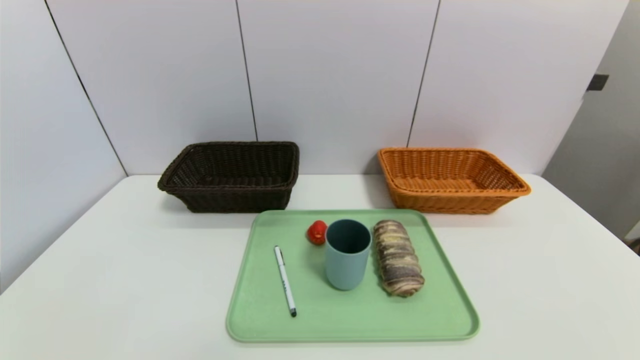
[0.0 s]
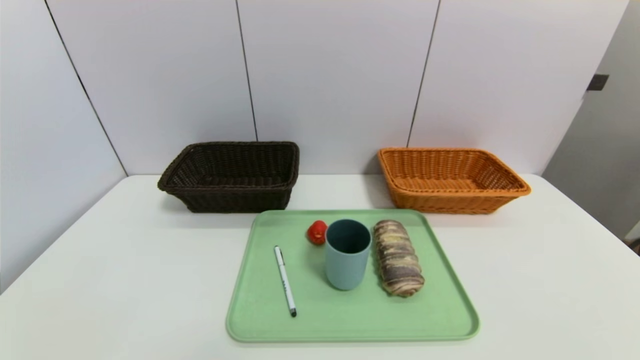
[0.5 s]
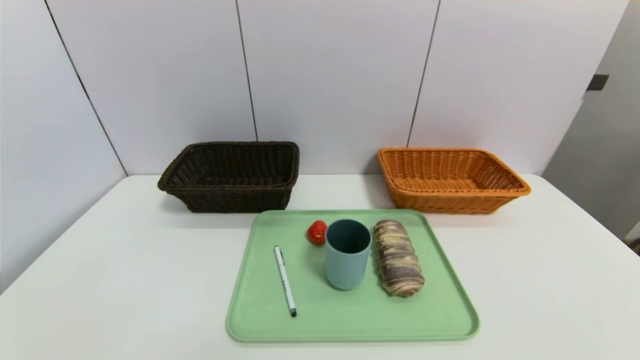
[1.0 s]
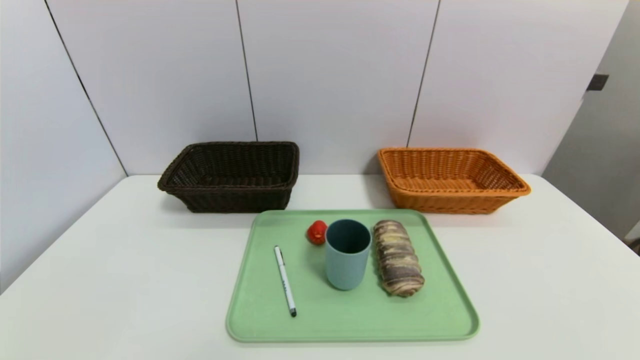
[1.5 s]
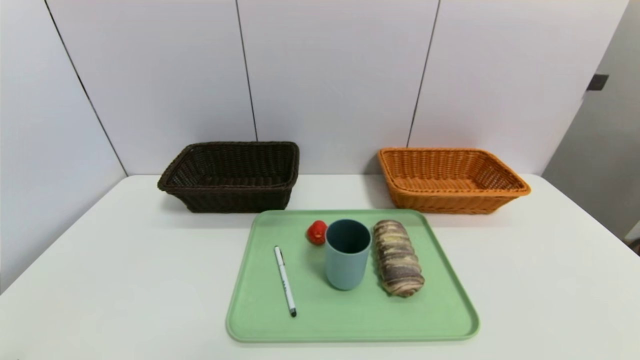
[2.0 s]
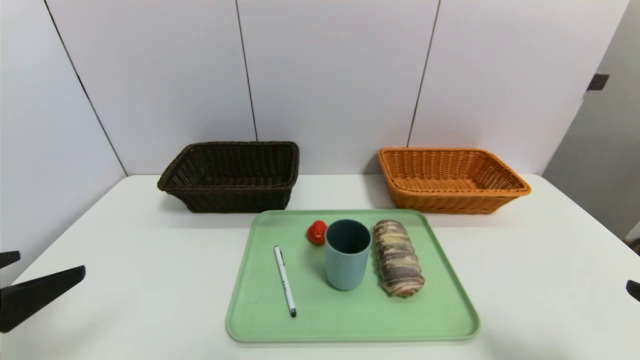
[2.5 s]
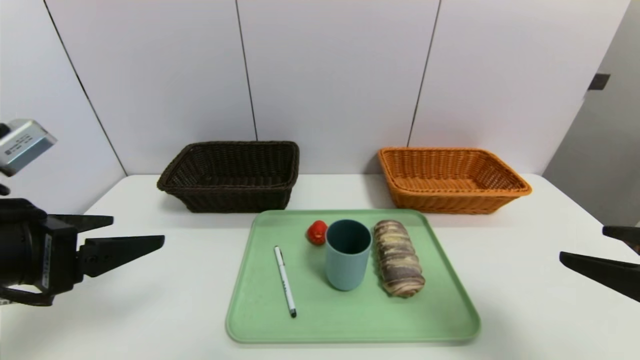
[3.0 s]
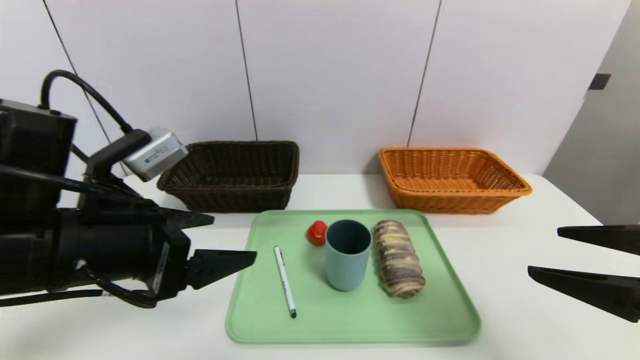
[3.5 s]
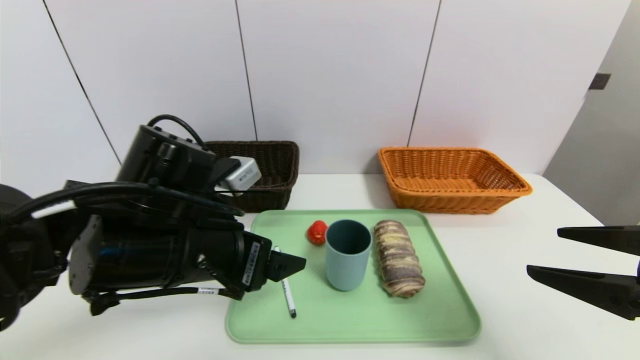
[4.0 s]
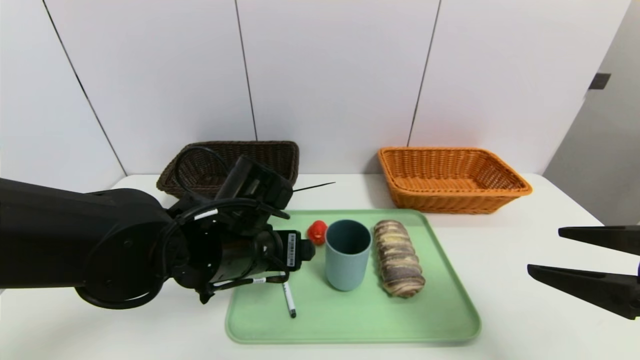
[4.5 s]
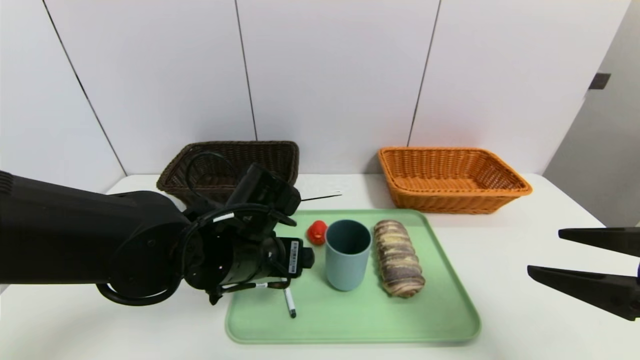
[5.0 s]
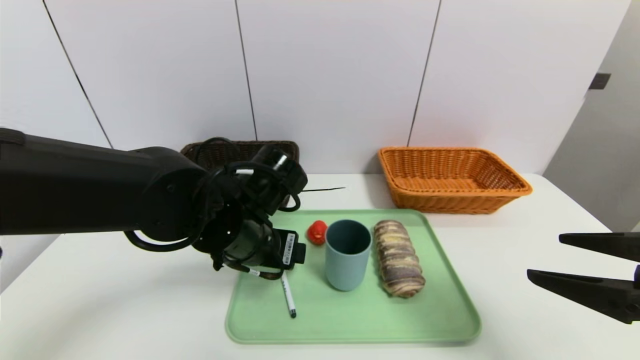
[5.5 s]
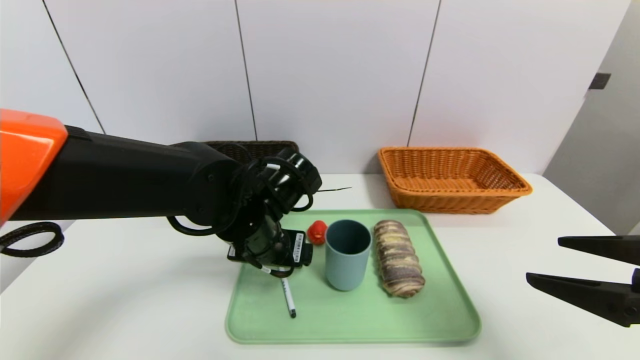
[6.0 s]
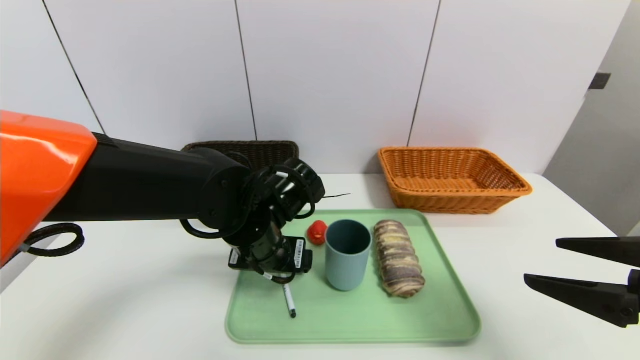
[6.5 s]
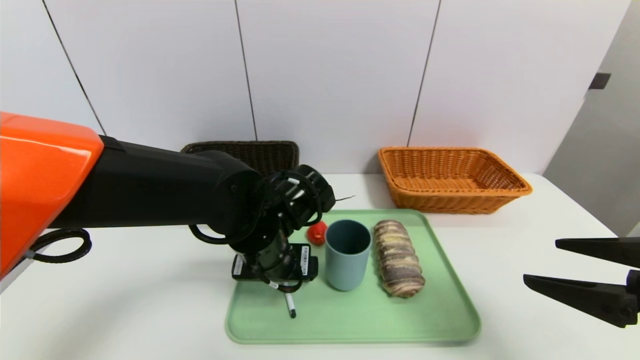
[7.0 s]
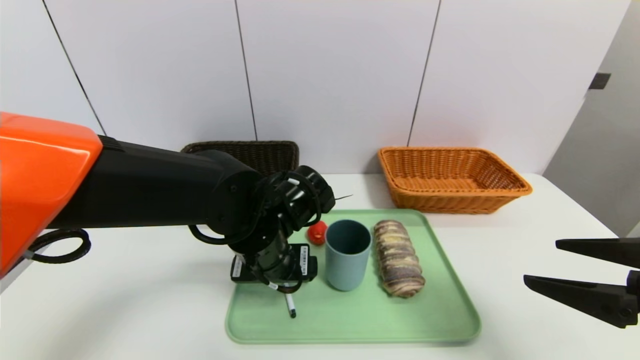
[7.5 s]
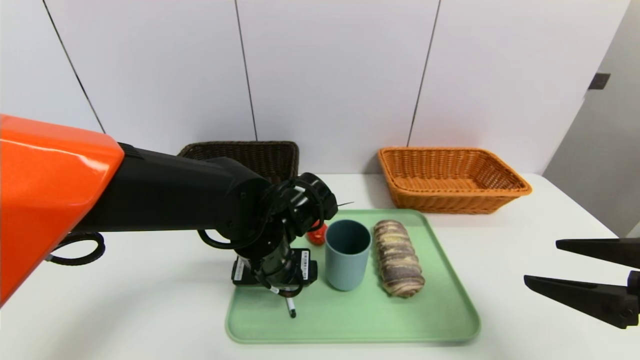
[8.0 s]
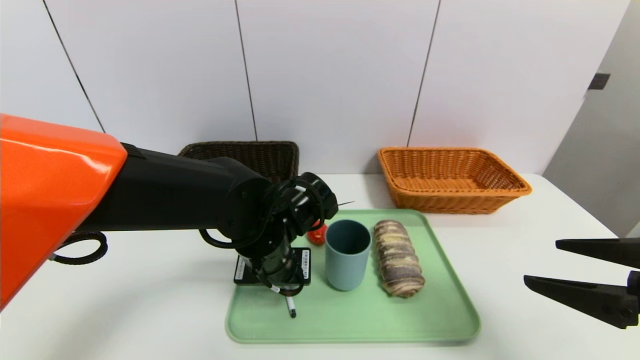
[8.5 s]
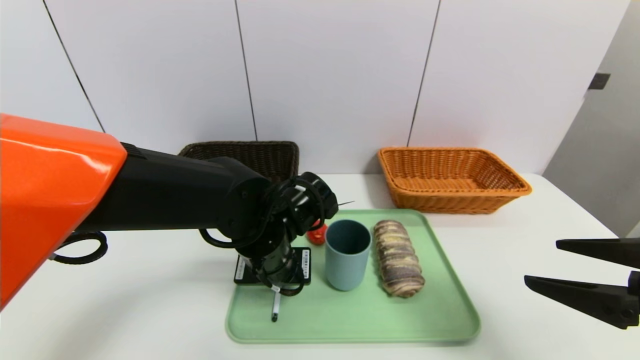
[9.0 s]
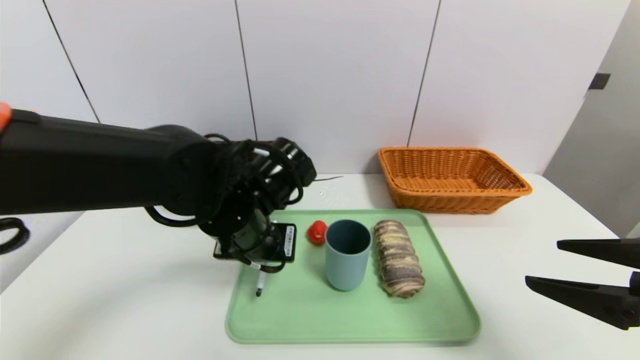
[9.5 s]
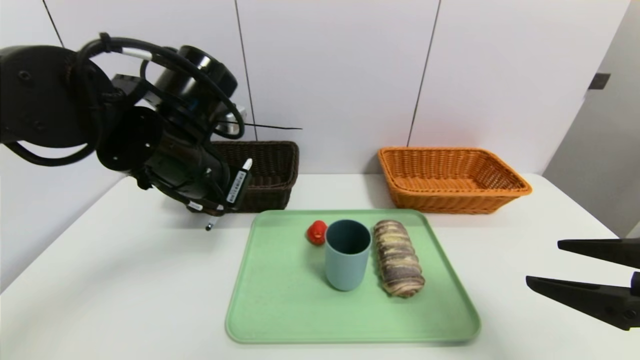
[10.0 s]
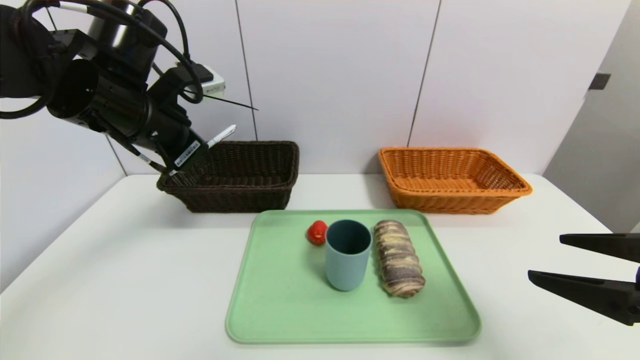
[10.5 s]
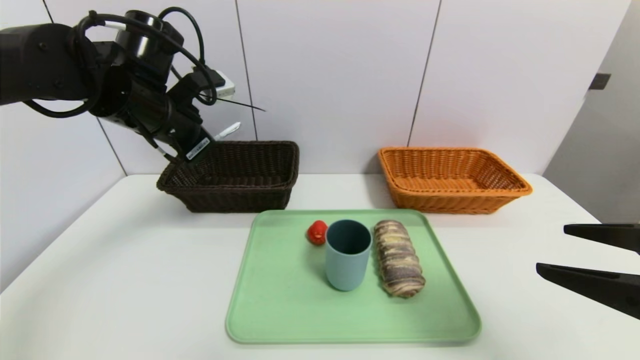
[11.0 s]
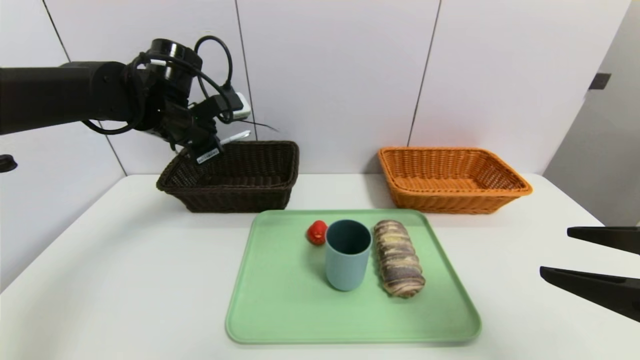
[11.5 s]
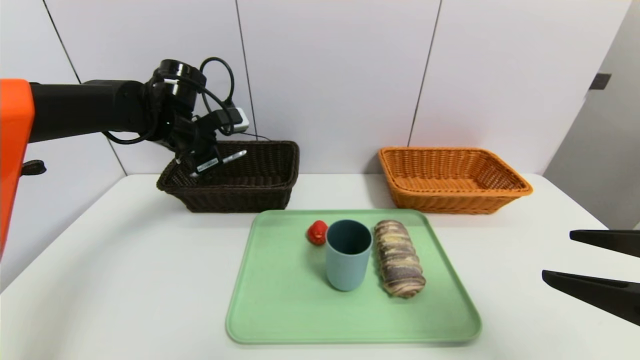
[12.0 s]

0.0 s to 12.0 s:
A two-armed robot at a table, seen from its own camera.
Task of the whole recording: place the food in the right basket with the right gripper, and place the non food items in the left basket with the left gripper.
2.0 to 4.0 s: The left gripper shifts roughly 25 cm forward and to the right. Meanwhile the right gripper shifts roughly 15 cm forward and upward.
4.0 to 6.0 s: The left gripper is displaced forward and to the right by about 10 cm.
6.0 to 8.0 s: The grippers make only small movements.
8.0 to 10.0 s: The left gripper is displaced upward and to the left by roughly 15 cm, and closes up.
10.0 to 12.0 s: The left gripper moves forward and to the left, some 15 cm.

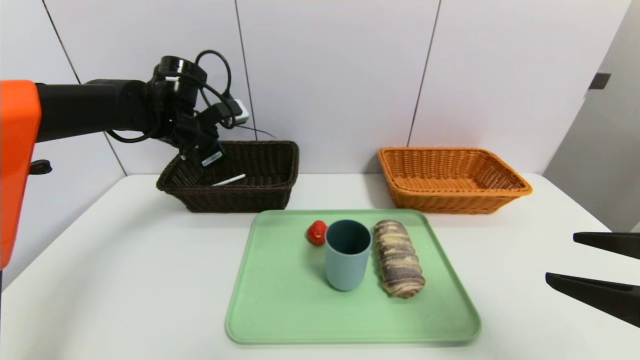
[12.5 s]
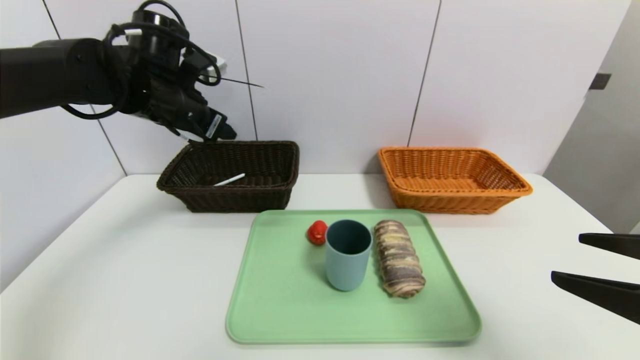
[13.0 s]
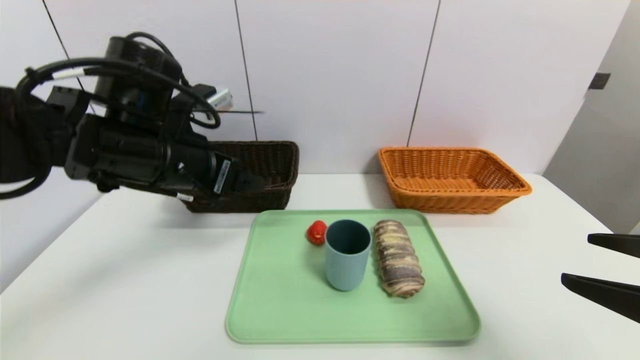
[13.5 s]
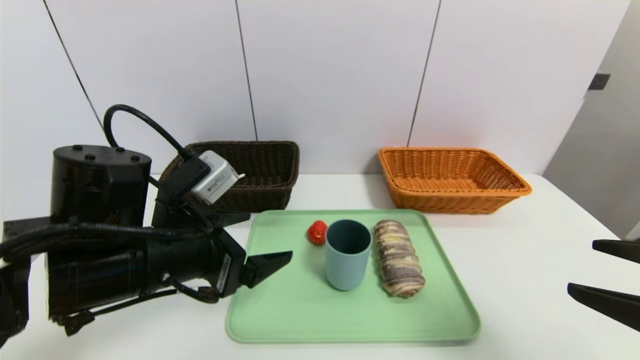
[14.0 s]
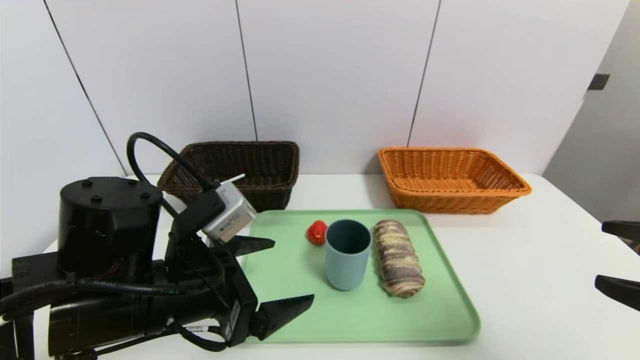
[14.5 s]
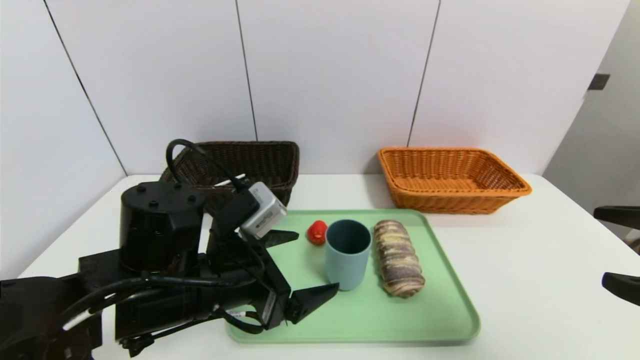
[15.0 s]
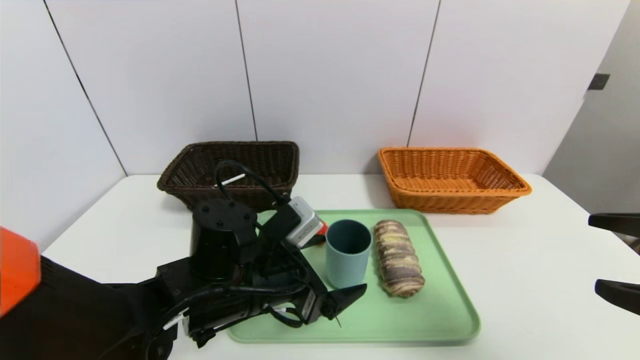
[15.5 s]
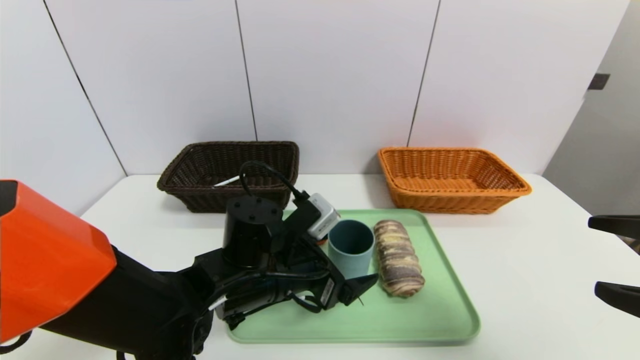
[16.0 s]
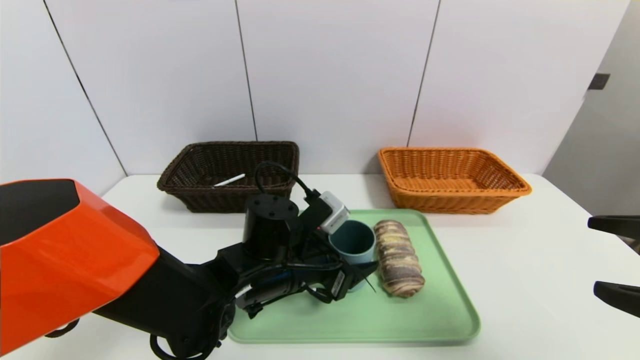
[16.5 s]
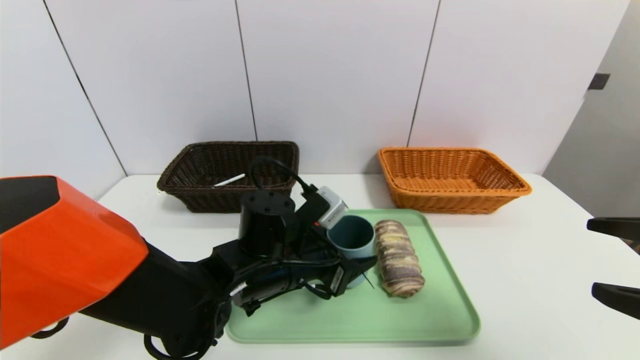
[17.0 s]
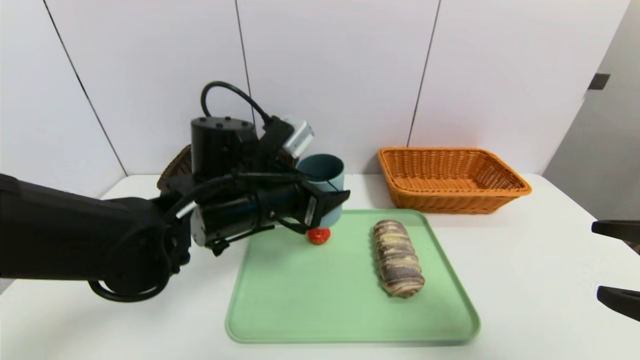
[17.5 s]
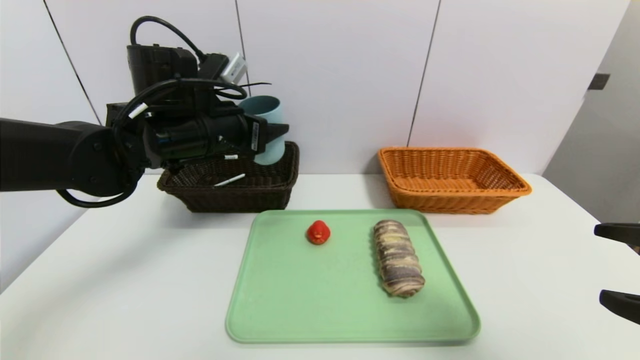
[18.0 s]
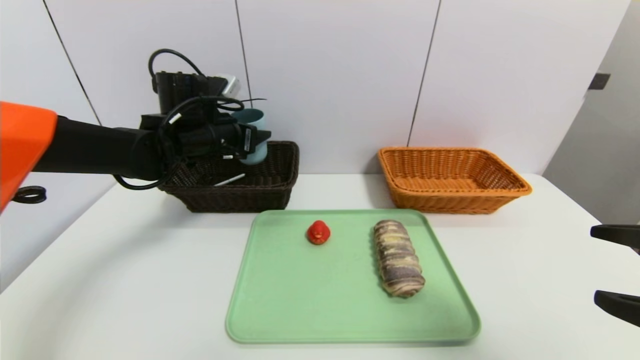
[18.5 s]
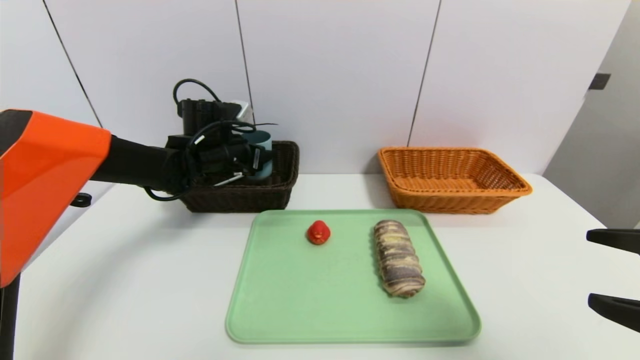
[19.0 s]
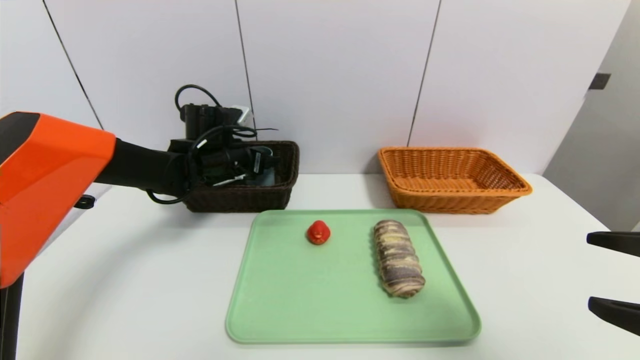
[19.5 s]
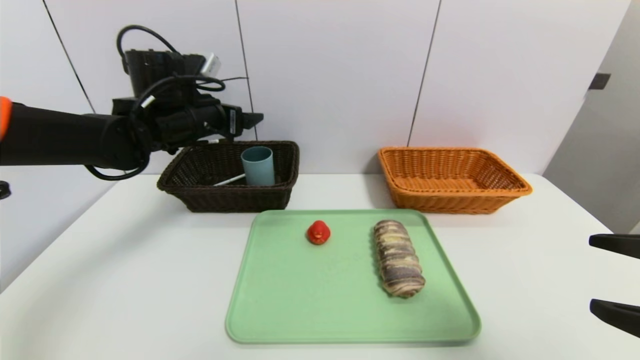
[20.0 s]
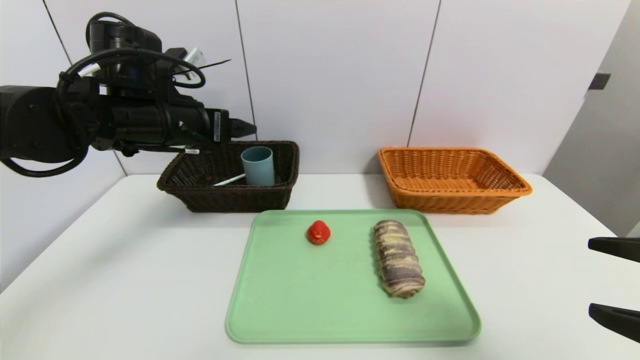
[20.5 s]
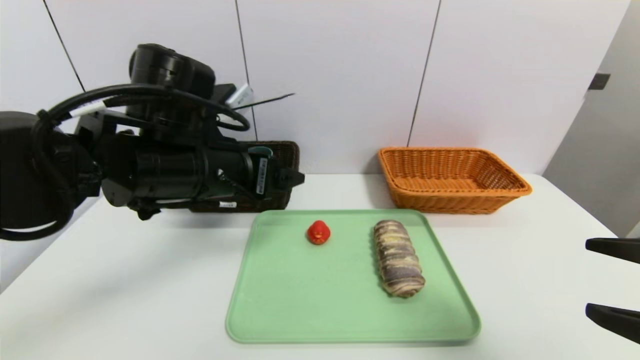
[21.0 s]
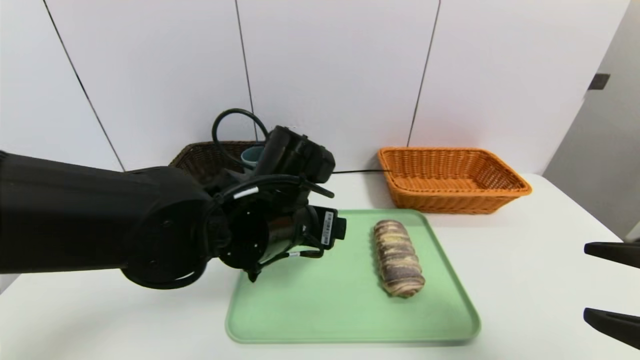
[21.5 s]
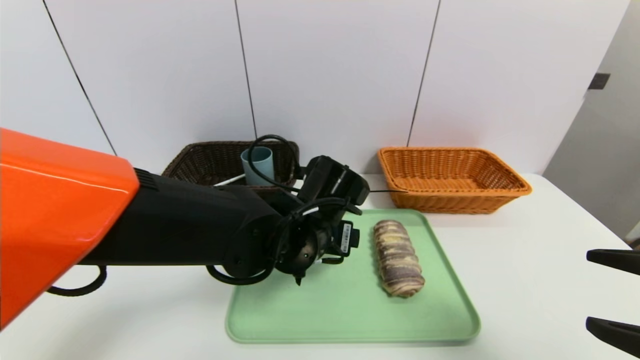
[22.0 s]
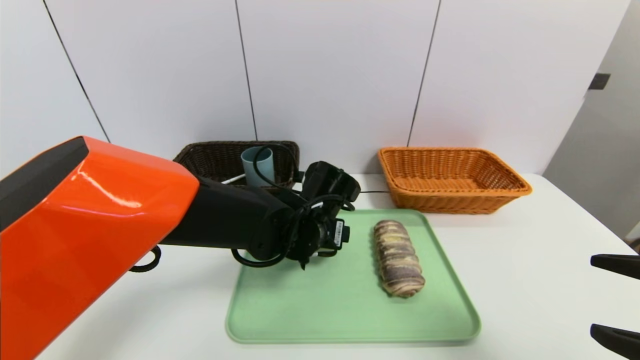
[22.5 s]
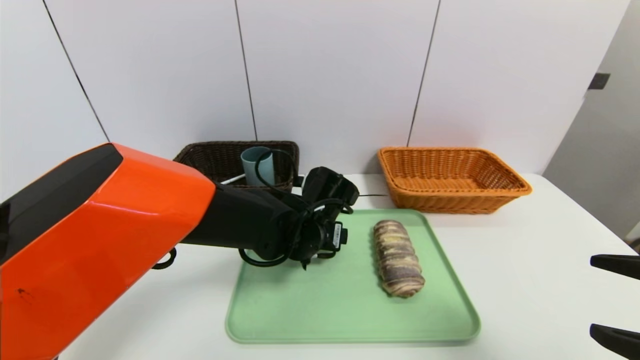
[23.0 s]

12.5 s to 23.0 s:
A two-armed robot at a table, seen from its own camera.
Task of the whole recording: place the food in the right basket with the right gripper, and place the non food items in the left basket with the left gripper.
Step, 13.0 to 19.0 s: Grasp the blue cup and put it in the left basket.
12.5 to 14.5 s: The left gripper heads backward, covering approximately 25 cm.
14.5 to 16.5 s: The left gripper travels to the right, forward and downward by approximately 15 cm.
16.5 to 19.0 s: The left gripper goes roughly 20 cm forward and to the left.
19.0 to 21.0 s: The left gripper is displaced backward and upward by some 20 cm.
21.0 to 23.0 s: The left gripper goes roughly 20 cm downward, to the right and forward.
